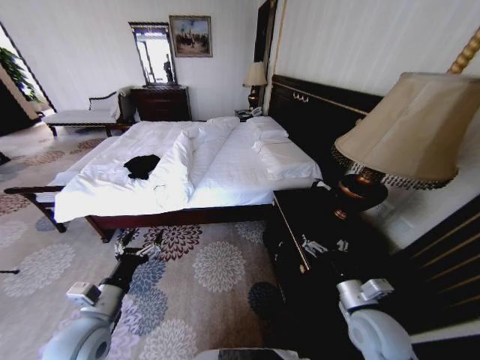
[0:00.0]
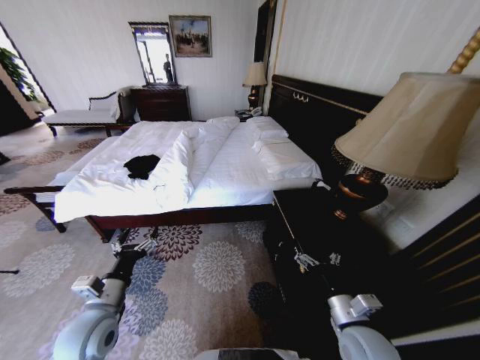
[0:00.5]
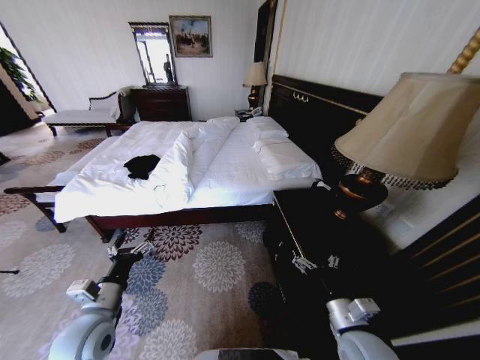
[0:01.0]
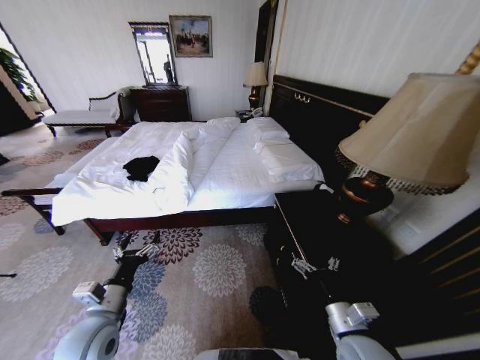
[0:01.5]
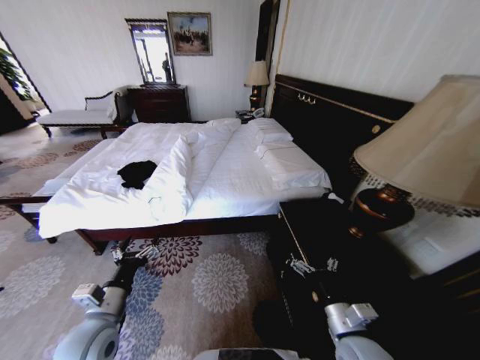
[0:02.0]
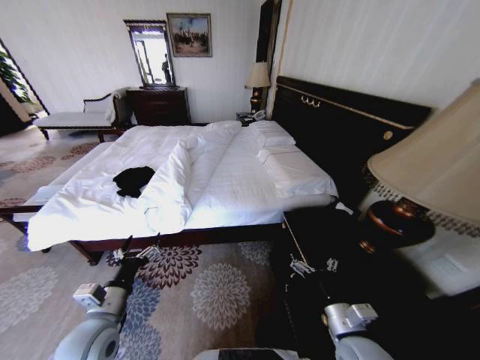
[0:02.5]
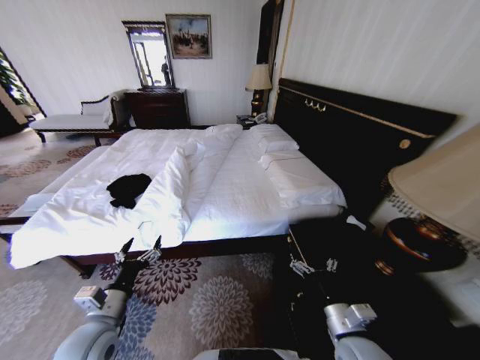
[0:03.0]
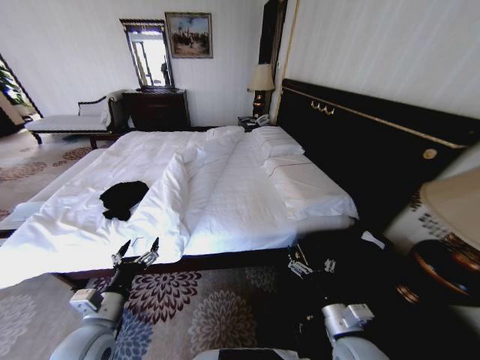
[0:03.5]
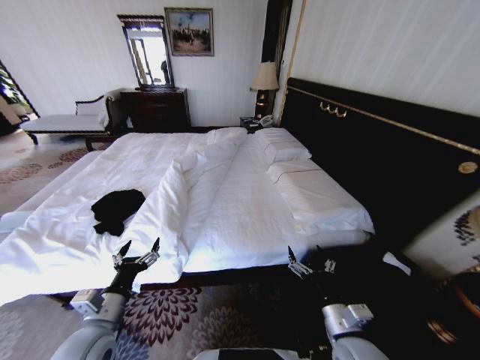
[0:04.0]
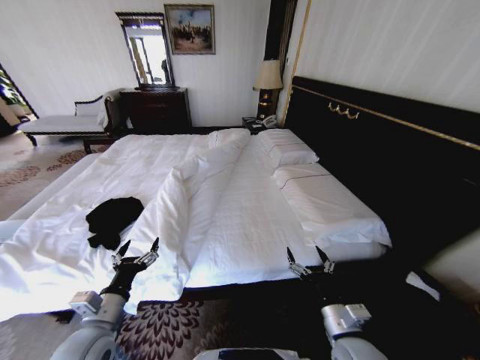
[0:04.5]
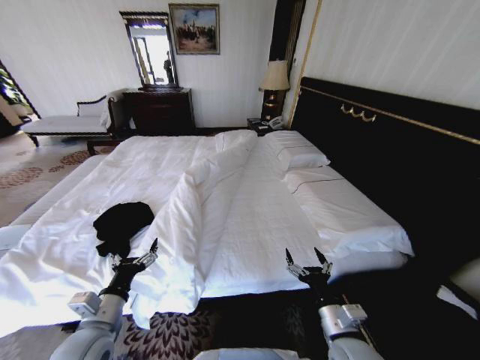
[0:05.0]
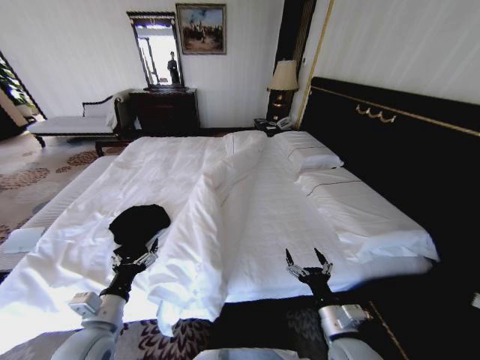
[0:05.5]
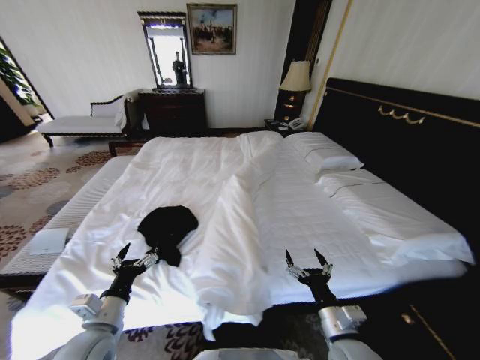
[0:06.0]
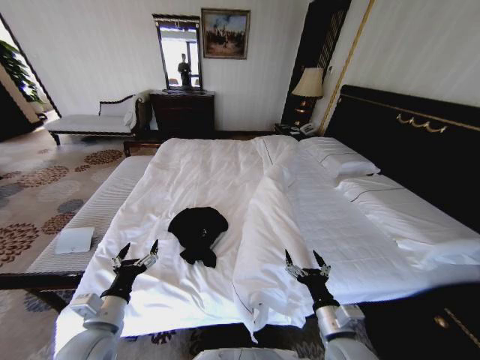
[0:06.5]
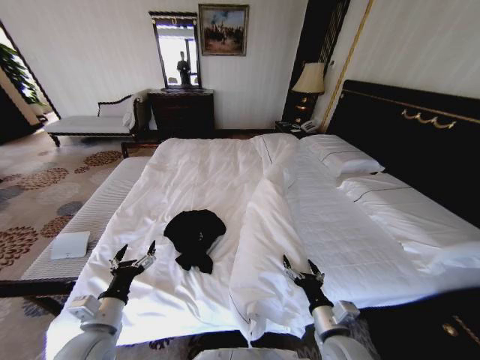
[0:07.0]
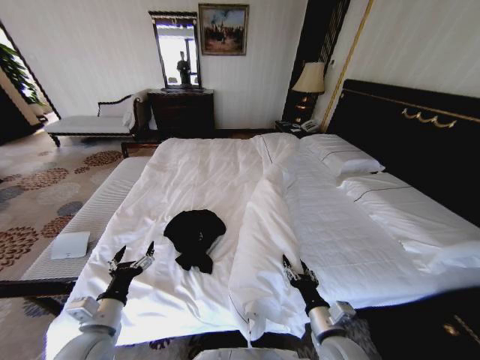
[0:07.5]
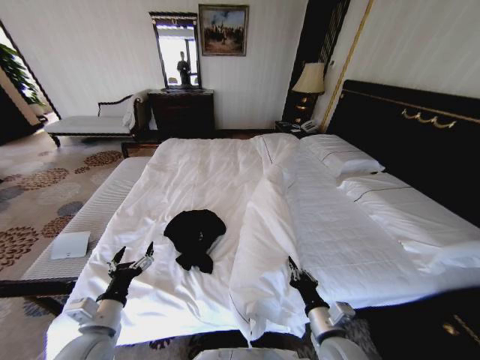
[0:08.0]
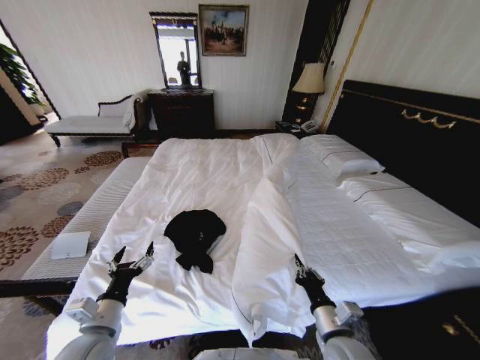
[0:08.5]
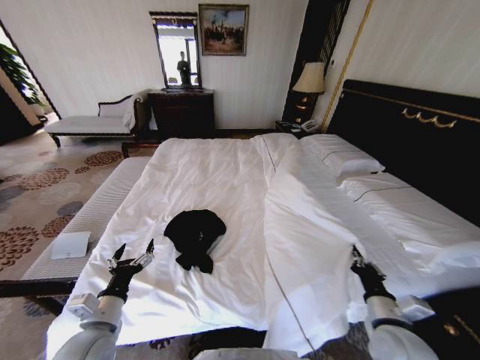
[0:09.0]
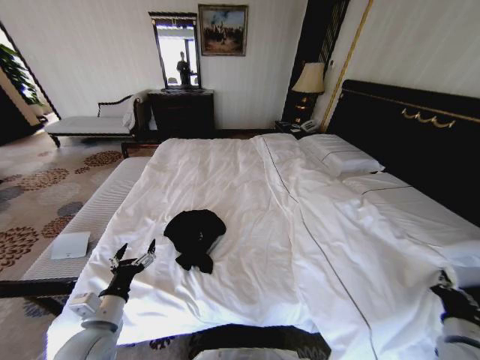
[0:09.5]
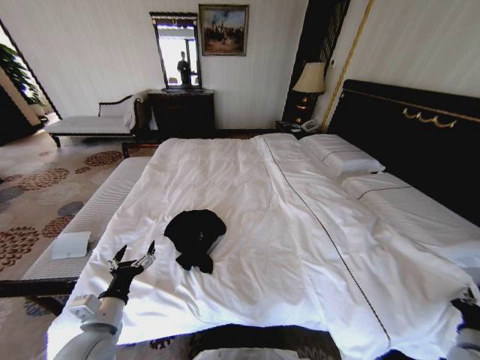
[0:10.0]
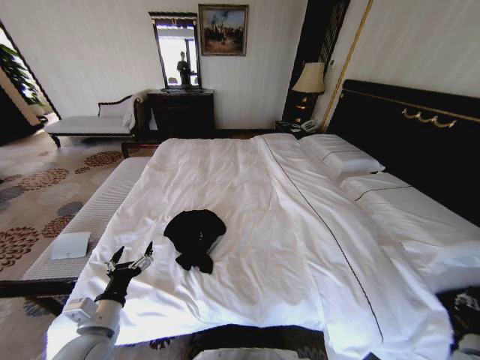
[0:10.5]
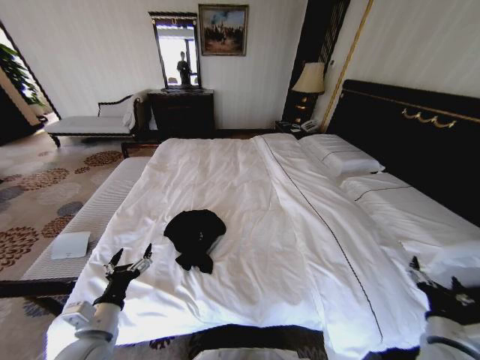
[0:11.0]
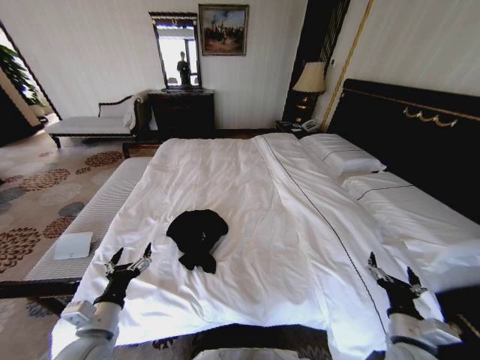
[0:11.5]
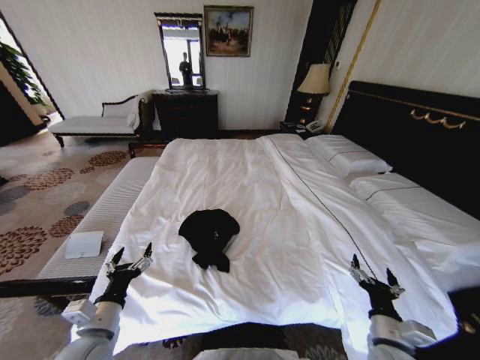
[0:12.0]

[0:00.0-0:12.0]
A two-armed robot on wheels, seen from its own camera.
Task of the whole recording: Fold the clothes on the bed.
0:06.0 to 0:08.0: The right gripper closes its fingers.
0:08.0 to 0:10.0: The right gripper travels to the right by about 30 cm.
0:10.0 to 0:12.0: The right gripper travels to the left by about 20 cm, and opens.

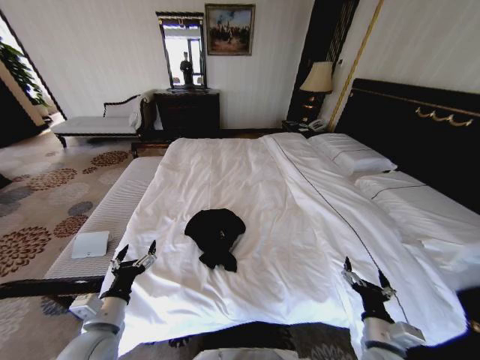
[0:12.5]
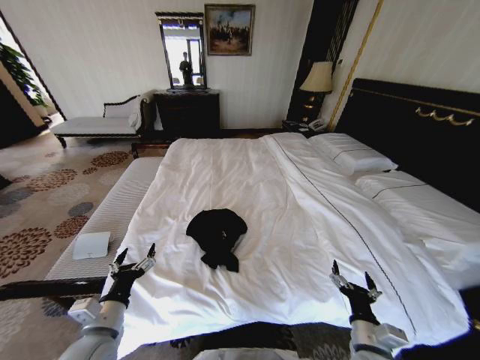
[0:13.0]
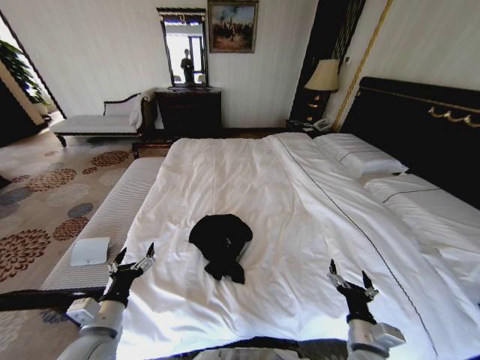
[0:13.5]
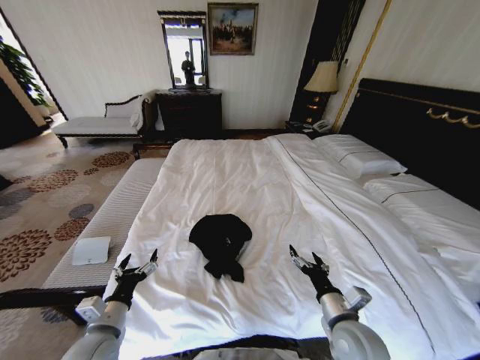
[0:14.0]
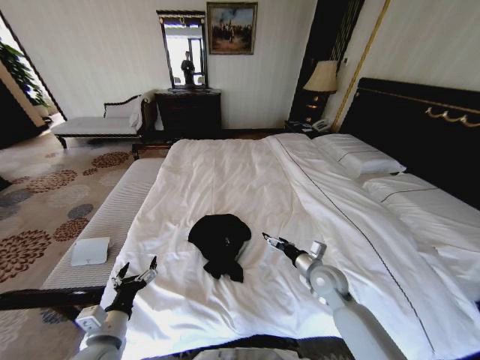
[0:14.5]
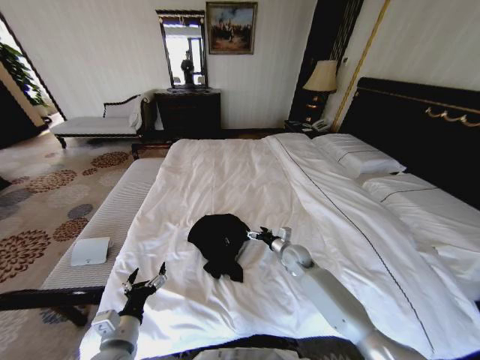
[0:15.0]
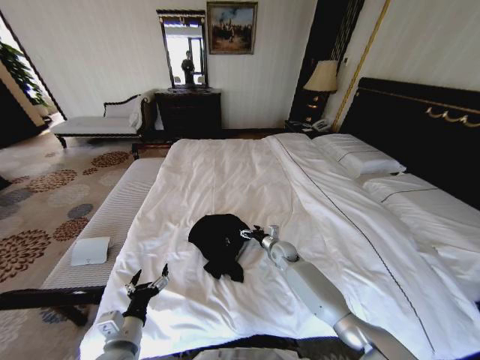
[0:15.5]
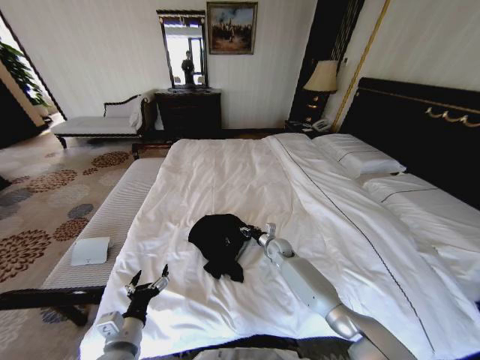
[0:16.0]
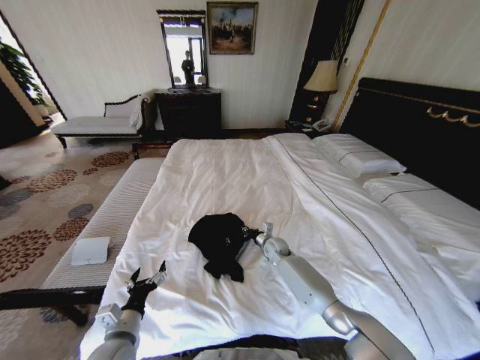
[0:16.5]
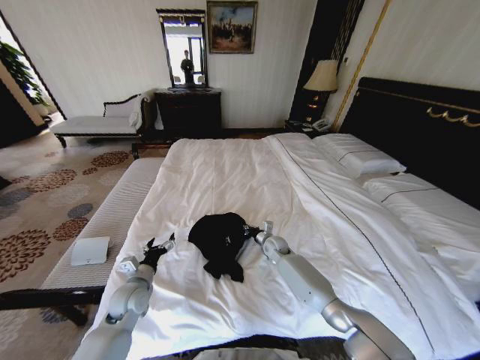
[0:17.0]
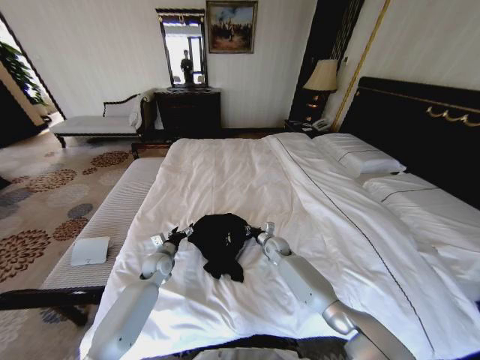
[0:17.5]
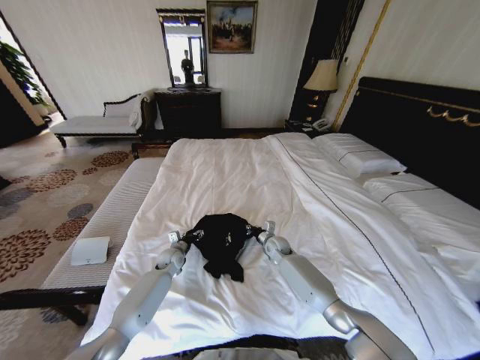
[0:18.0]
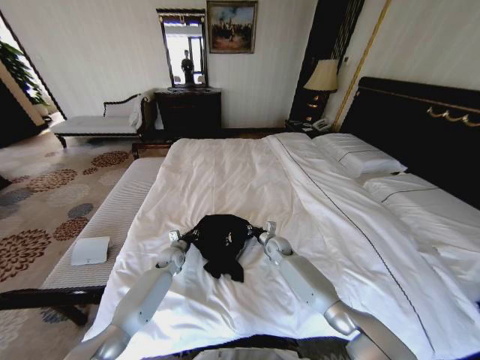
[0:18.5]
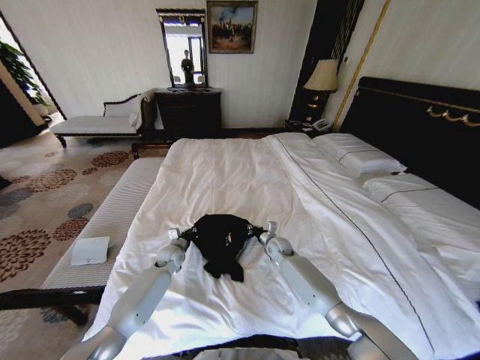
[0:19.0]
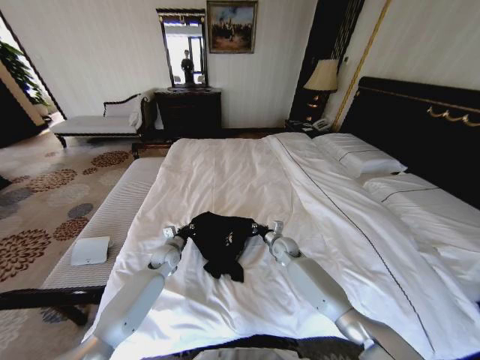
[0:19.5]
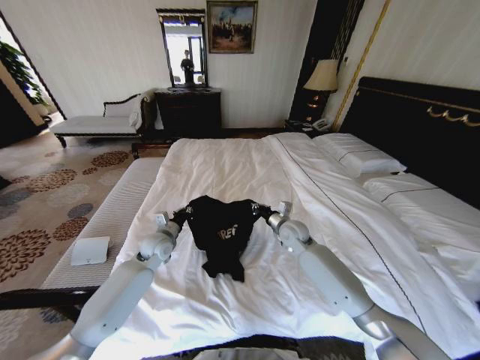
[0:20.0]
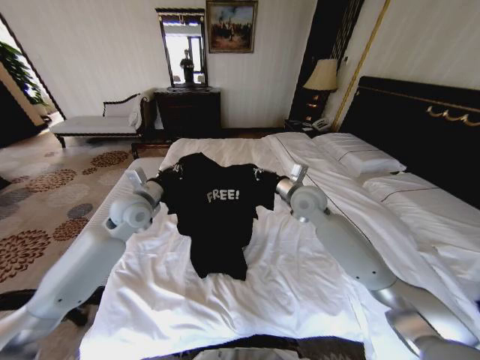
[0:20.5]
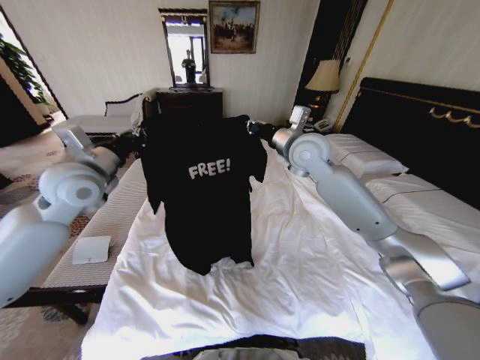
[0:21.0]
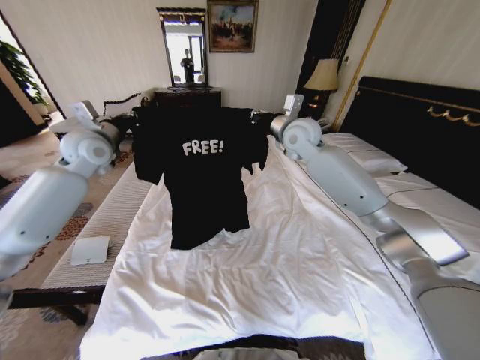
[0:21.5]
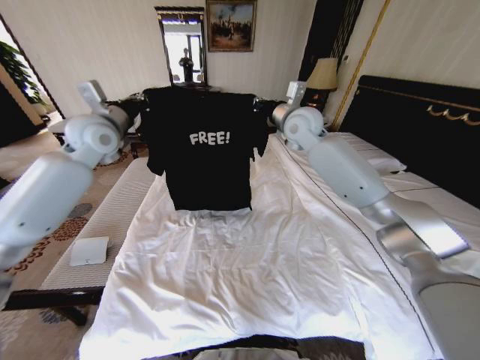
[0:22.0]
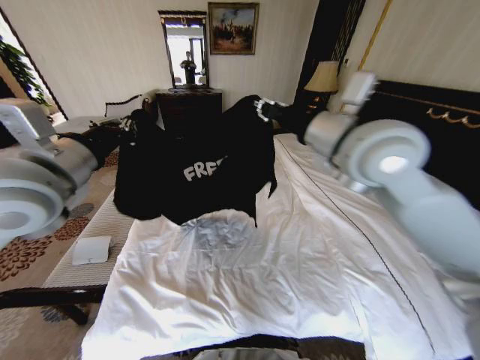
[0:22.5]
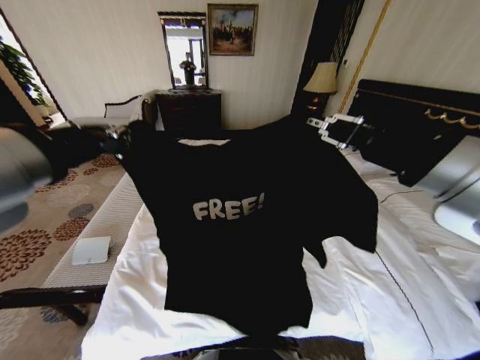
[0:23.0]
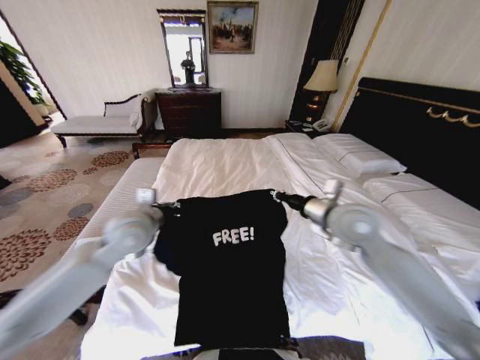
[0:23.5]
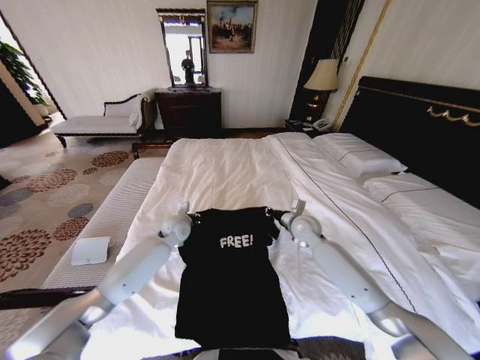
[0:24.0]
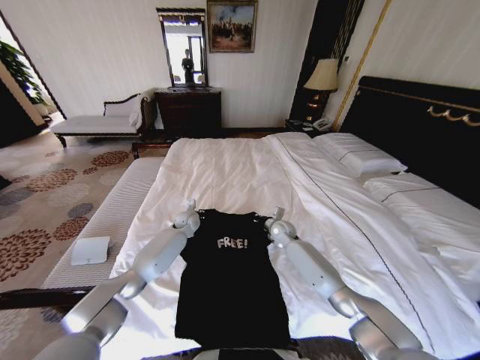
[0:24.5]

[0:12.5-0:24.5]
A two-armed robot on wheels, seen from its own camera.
Task of the whole recording: Fold the clothes on the bed.
0:12.5 to 0:14.5: The right gripper heads forward, covering roughly 20 cm.
0:14.5 to 0:16.5: The right gripper moves forward, downward and to the left, about 20 cm, and closes up.
0:16.5 to 0:18.5: The left gripper heads forward, covering approximately 30 cm, and closes up.
0:18.5 to 0:20.5: The two grippers go approximately 30 cm upward.
0:20.5 to 0:22.5: Both grippers move upward and backward, approximately 20 cm.
0:22.5 to 0:24.5: The right gripper heads downward, covering some 40 cm, while the left gripper shifts roughly 50 cm downward and forward.

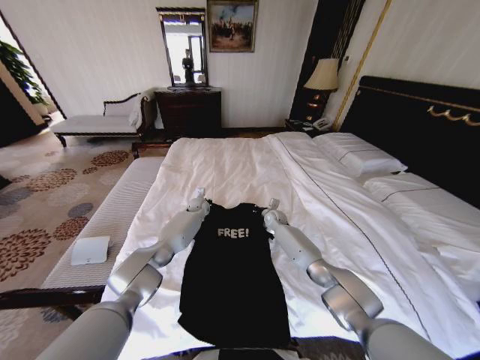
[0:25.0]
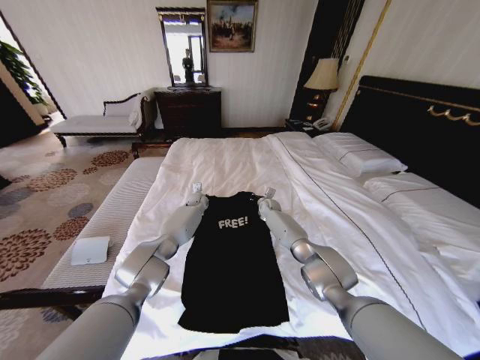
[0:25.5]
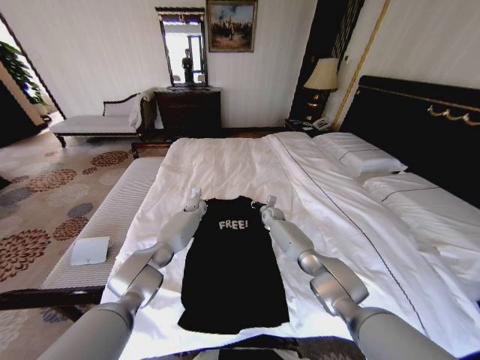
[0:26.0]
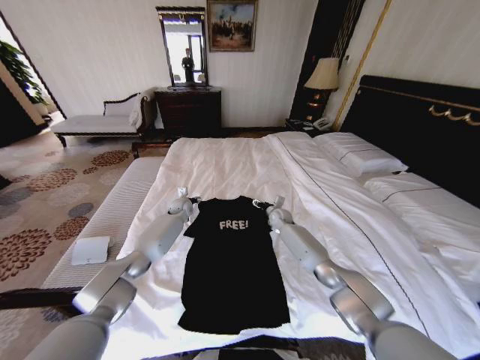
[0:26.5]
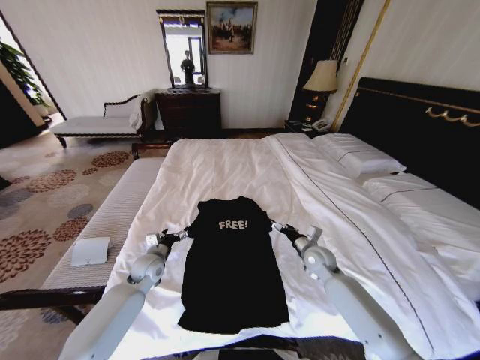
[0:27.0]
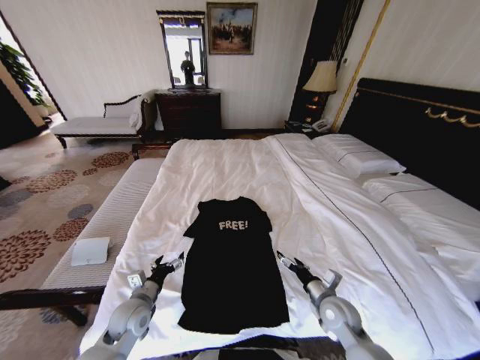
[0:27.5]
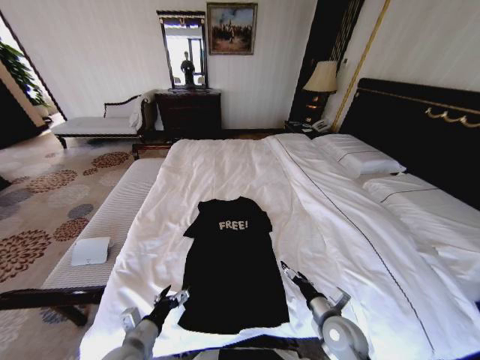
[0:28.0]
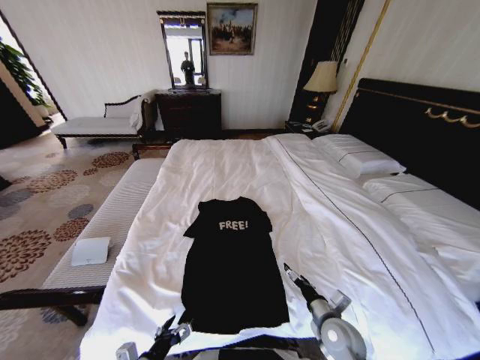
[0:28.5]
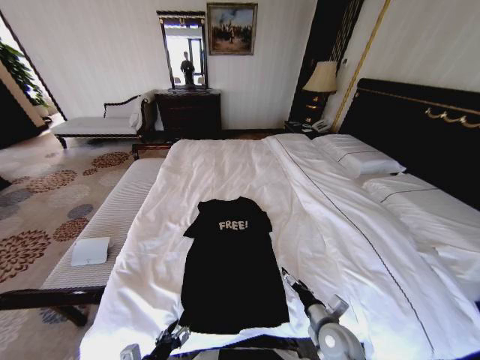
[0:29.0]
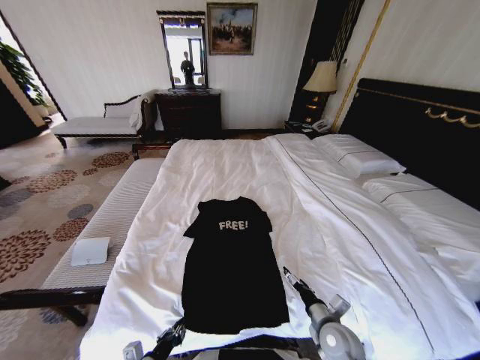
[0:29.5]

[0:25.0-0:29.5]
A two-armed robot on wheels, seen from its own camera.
Task of the whole recording: Fold the clothes on the bed.
0:25.0 to 0:27.0: The left gripper shifts roughly 30 cm backward and to the left, and opens up; the right gripper moves backward and to the right, approximately 20 cm, and opens.
0:27.0 to 0:29.5: The two grippers go approximately 25 cm backward. The left gripper closes up.
